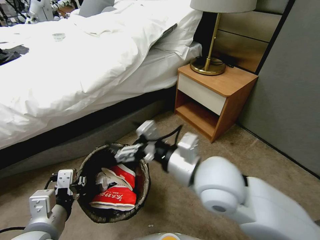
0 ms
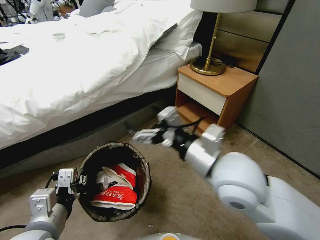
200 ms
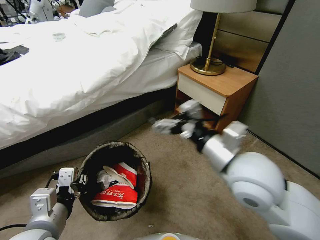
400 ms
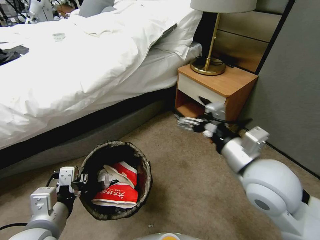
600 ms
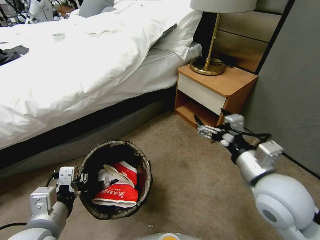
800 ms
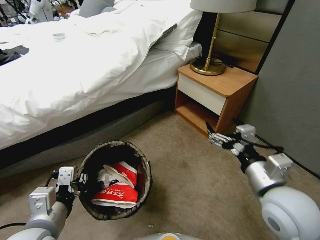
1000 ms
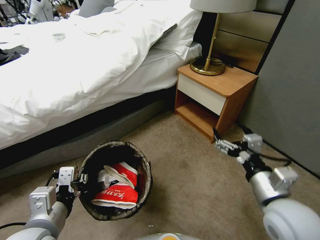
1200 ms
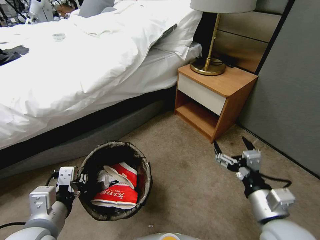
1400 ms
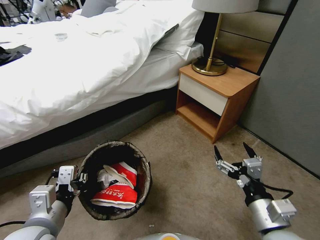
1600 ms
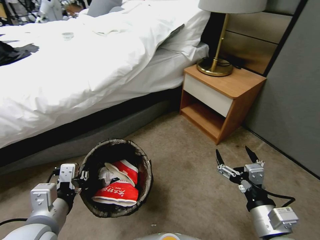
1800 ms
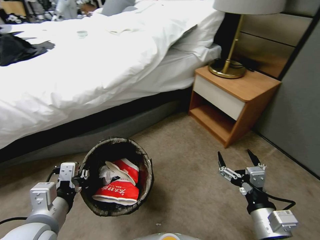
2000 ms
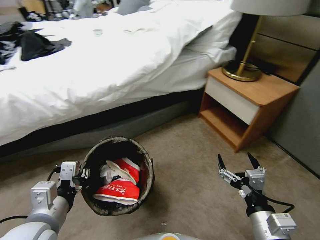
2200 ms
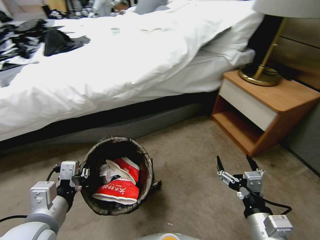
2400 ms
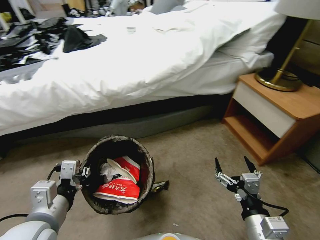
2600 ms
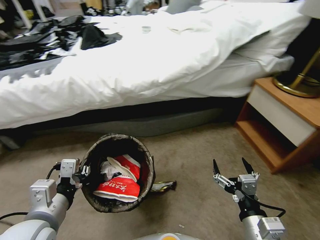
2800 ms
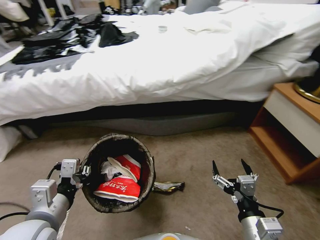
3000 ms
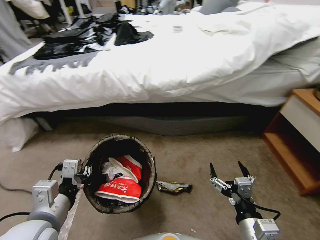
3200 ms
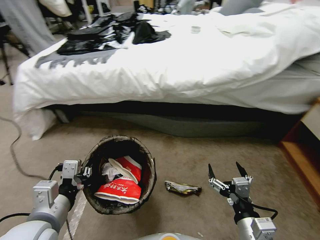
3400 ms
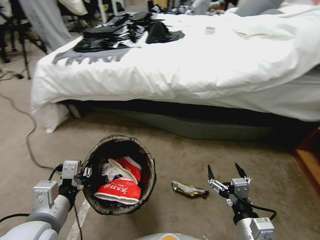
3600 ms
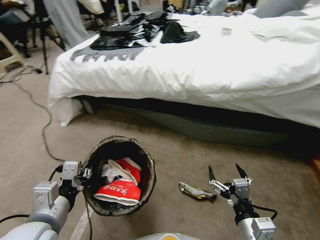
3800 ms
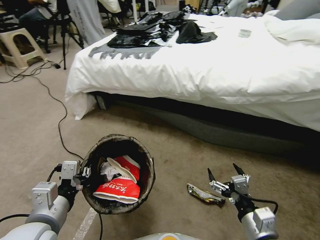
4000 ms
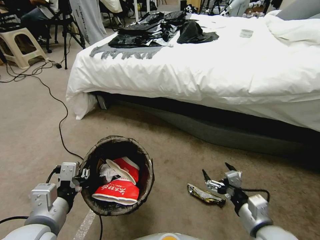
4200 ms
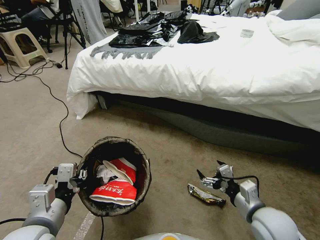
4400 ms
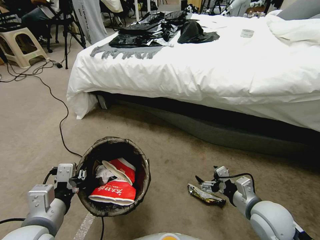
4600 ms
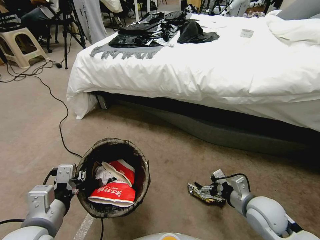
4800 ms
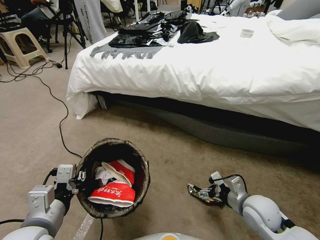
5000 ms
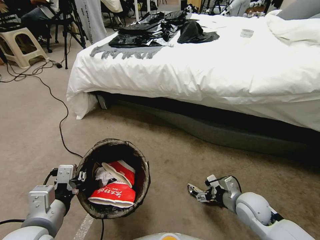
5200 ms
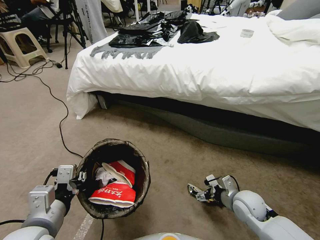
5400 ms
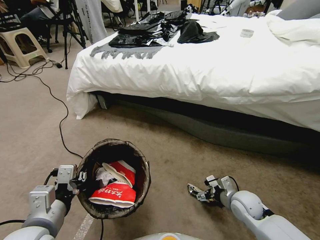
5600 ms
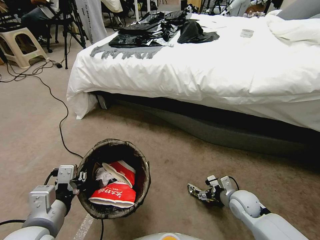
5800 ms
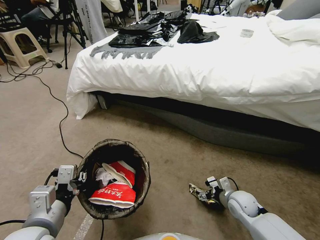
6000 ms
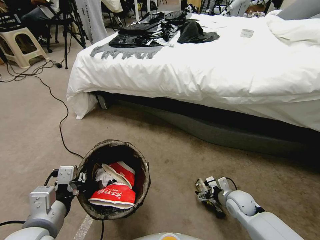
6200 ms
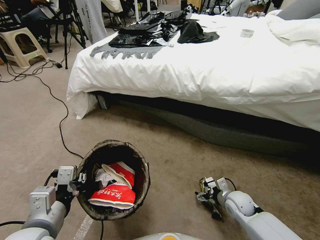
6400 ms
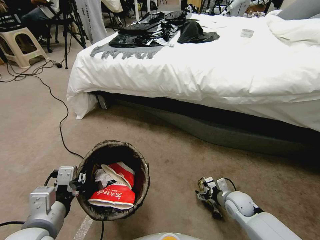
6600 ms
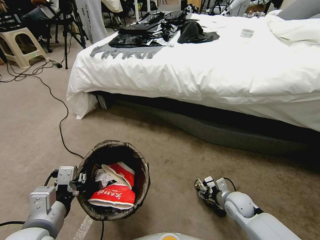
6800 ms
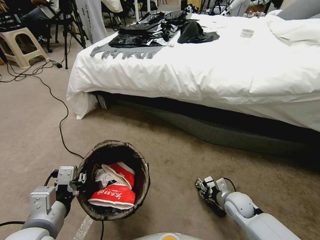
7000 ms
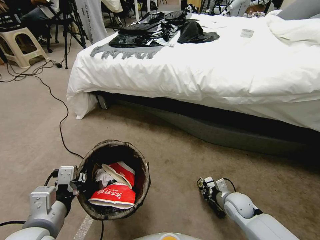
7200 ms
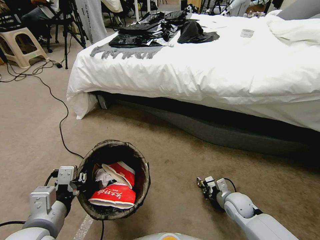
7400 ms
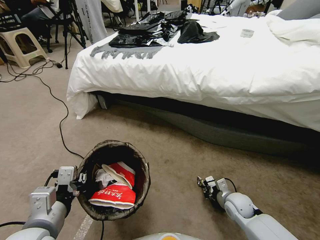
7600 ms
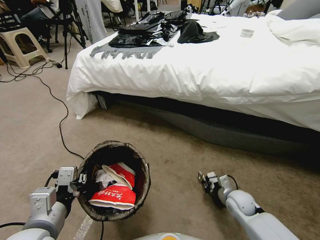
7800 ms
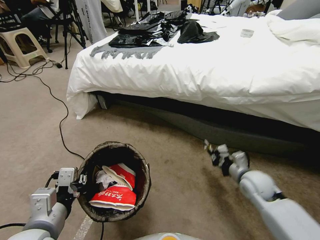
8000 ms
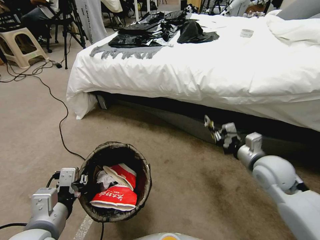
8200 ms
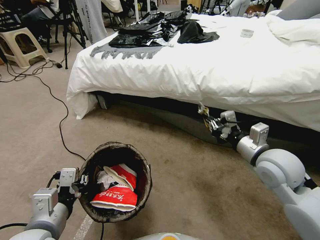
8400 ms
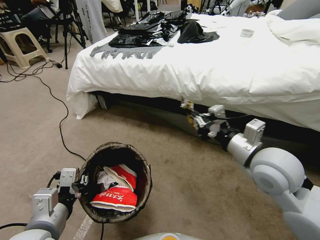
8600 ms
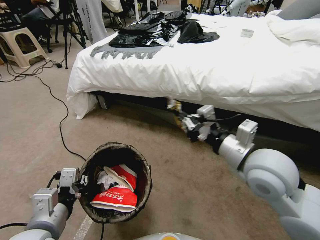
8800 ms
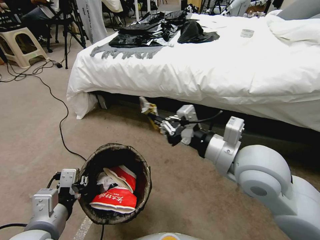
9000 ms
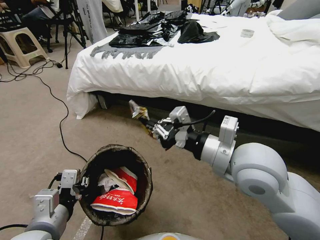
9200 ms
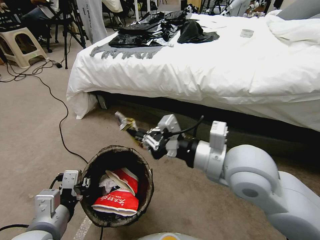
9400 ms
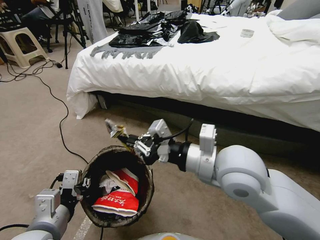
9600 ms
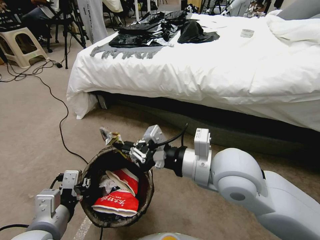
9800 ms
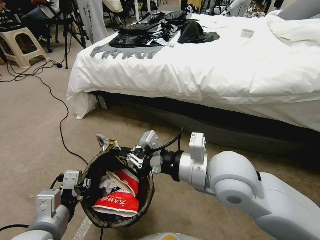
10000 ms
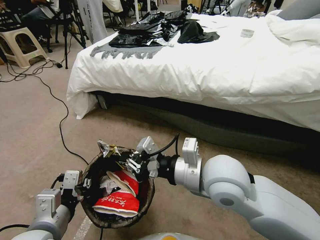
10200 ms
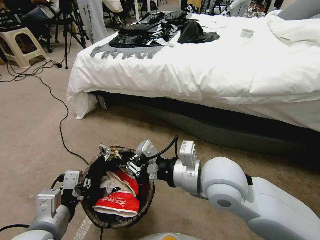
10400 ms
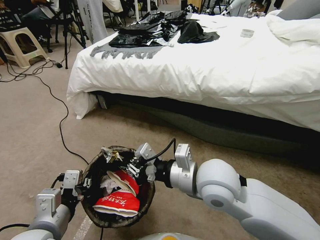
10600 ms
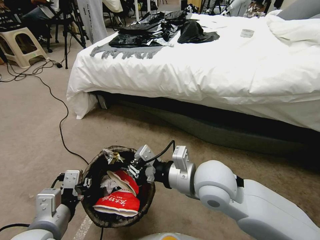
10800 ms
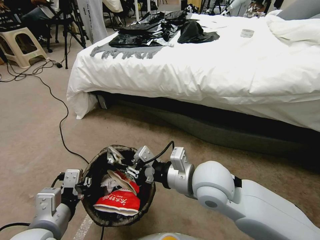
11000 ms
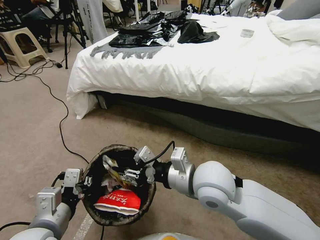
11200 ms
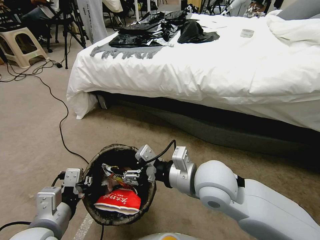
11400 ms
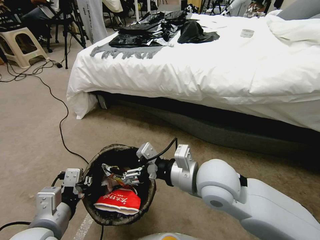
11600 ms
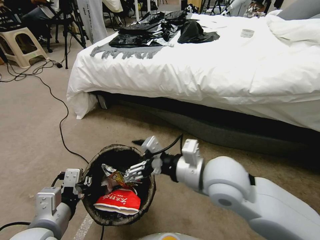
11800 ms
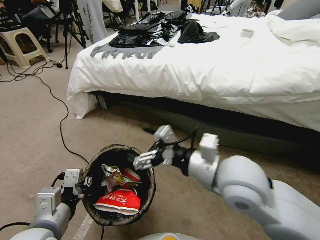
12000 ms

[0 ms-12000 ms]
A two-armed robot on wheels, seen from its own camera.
Task of the whole recording: Pick up the trash bin, then pick up the garbage from the floor and place it into the trash bin.
0 ms to 1600 ms: The right gripper travels to the right, downward and backward by about 25 cm.
1600 ms to 3000 ms: The right gripper shifts by approximately 5 cm.
3000 ms to 4400 ms: The right gripper heads forward, covering roughly 10 cm.
4400 ms to 6000 ms: The right gripper shifts about 15 cm downward and forward.
6000 ms to 7600 ms: The right gripper closes its fingers.
7600 ms to 9000 ms: The right gripper goes some 35 cm upward.
9000 ms to 10400 ms: The right gripper heads to the left, covering about 5 cm.
10400 ms to 12000 ms: The right gripper opens its fingers.

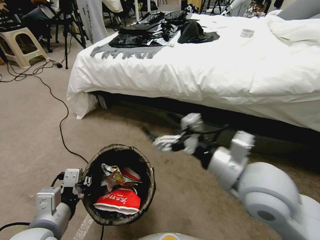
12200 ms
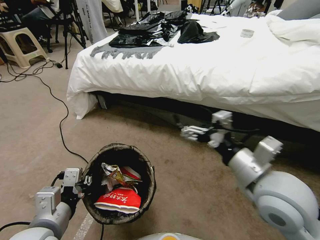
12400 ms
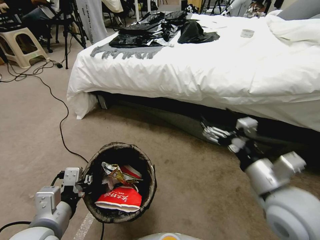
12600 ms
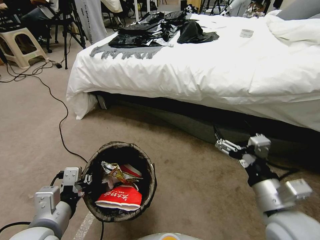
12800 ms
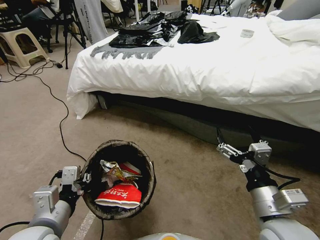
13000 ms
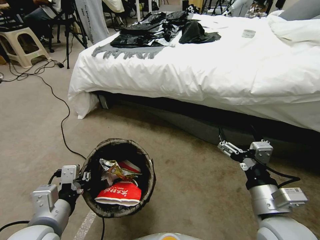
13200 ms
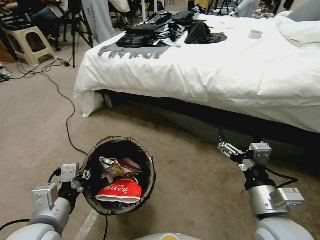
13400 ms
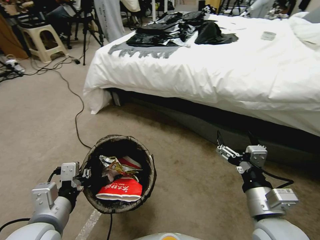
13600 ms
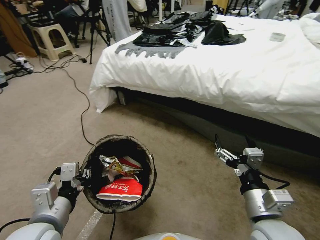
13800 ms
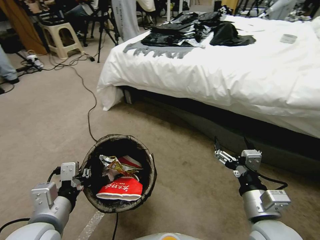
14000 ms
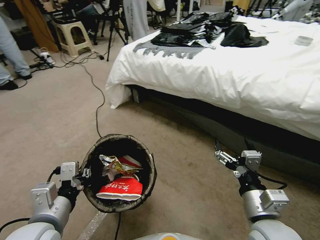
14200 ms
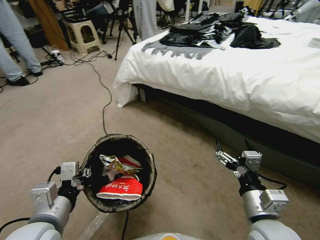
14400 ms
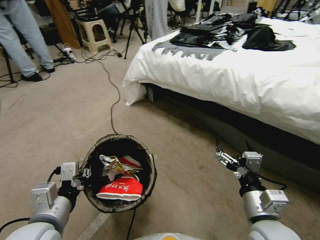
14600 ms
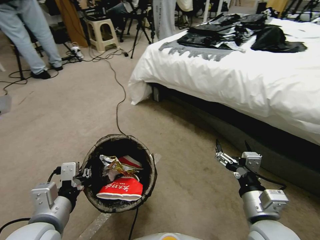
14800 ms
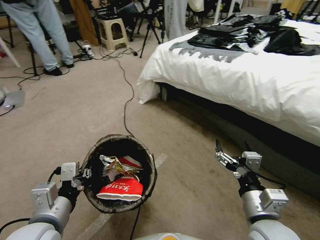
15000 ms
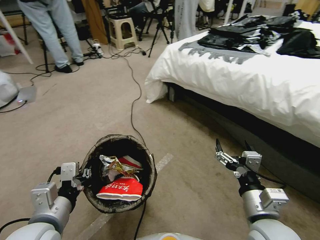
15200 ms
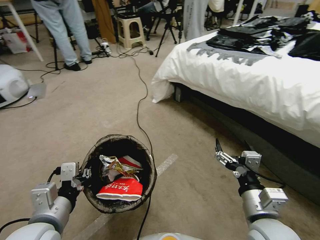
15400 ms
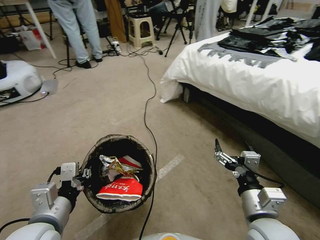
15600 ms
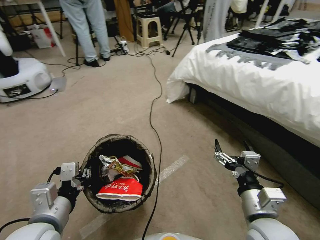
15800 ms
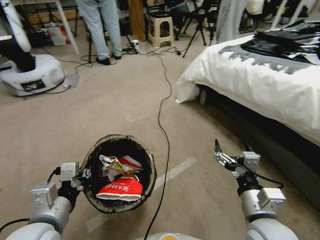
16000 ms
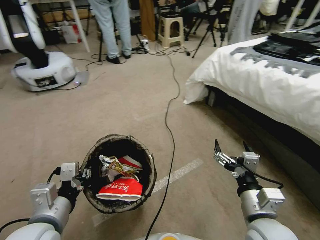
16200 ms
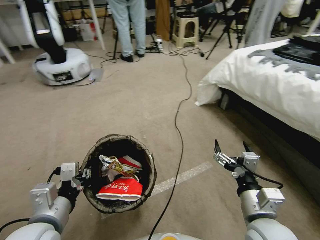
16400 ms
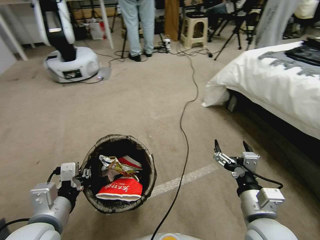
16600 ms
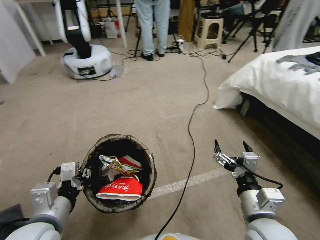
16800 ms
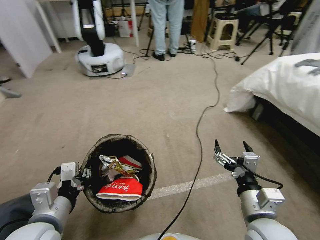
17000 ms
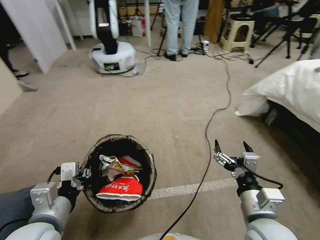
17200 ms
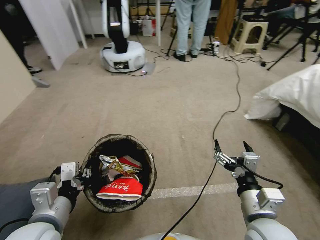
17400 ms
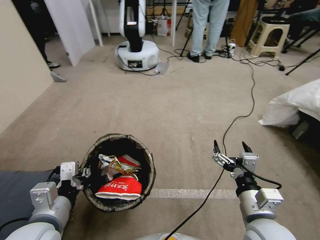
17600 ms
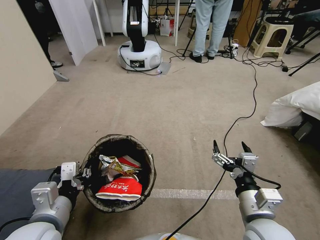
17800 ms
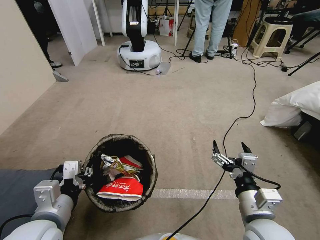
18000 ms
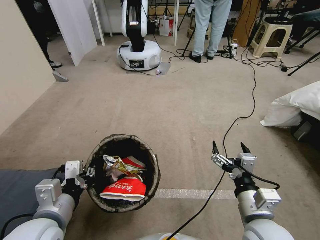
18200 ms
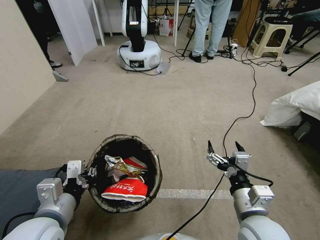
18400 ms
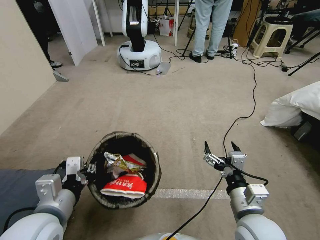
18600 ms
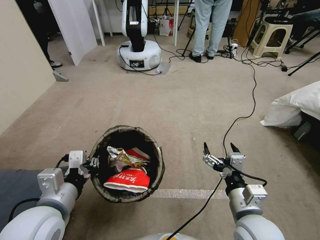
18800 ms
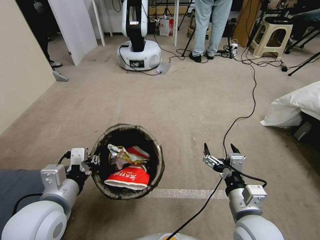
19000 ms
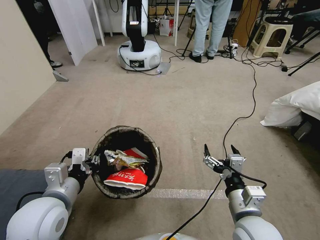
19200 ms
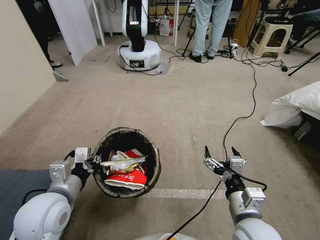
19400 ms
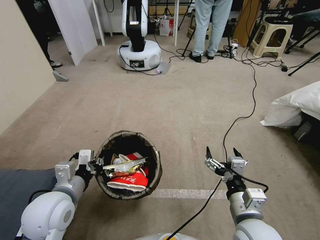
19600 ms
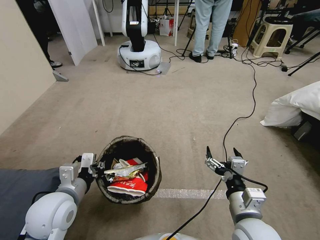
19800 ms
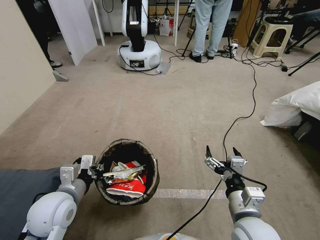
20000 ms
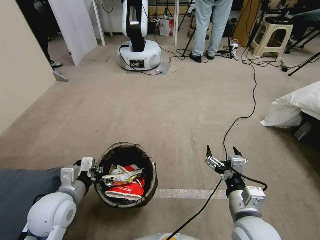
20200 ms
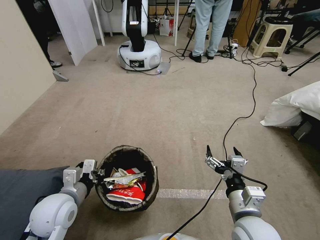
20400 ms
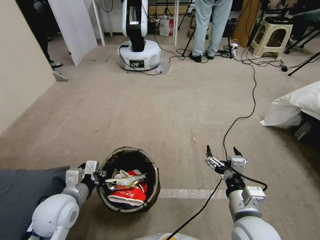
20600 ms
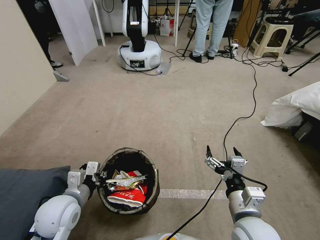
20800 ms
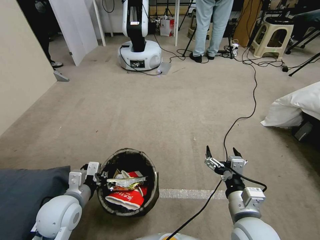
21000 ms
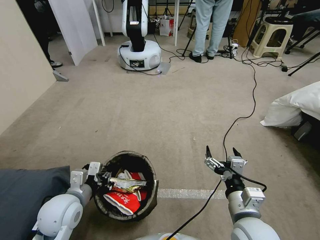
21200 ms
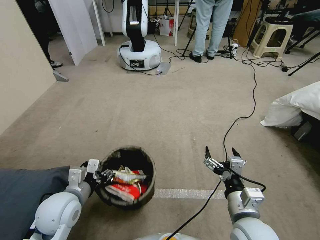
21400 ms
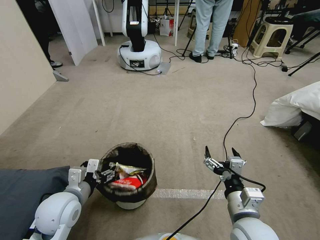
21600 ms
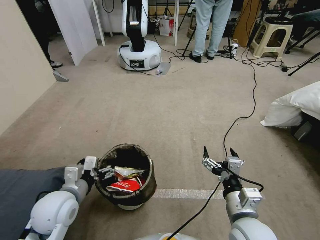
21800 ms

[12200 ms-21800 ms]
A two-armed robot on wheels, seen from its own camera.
Task of the whole recording: Pick up the trash bin, then pick up the garbage from the floor and place it into the trash bin.
12200 ms to 13800 ms: The right gripper moves downward, backward and to the right, about 15 cm.
18600 ms to 20200 ms: The left gripper heads downward and forward, covering roughly 10 cm.
20200 ms to 21800 ms: The left gripper opens.

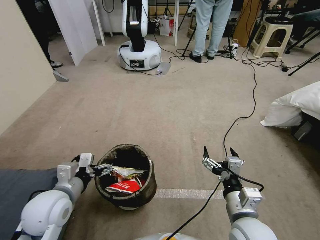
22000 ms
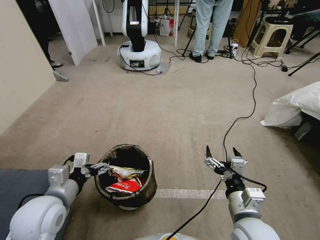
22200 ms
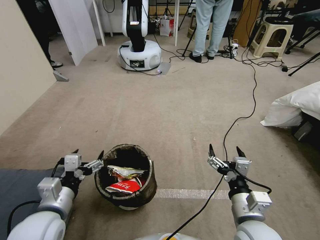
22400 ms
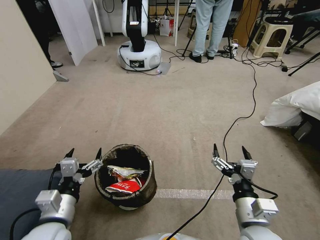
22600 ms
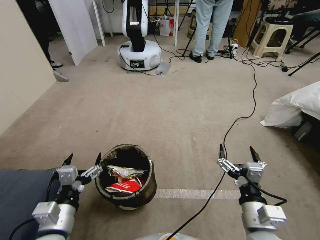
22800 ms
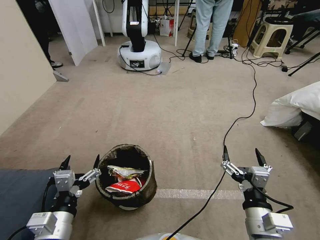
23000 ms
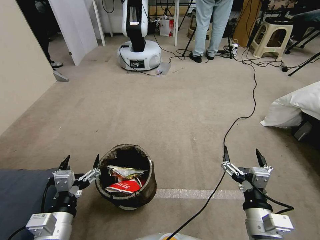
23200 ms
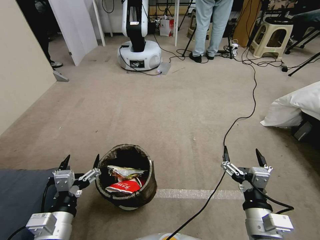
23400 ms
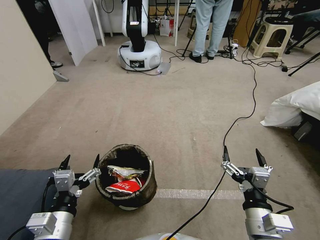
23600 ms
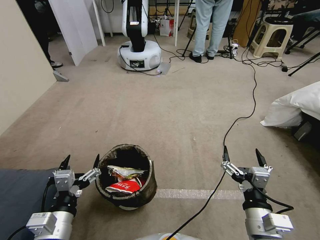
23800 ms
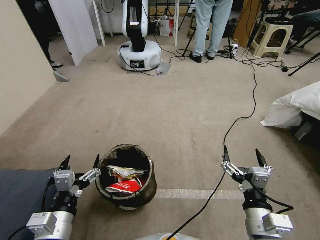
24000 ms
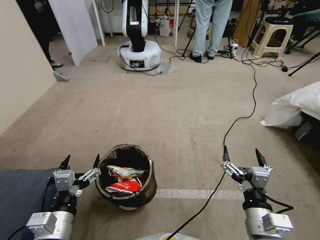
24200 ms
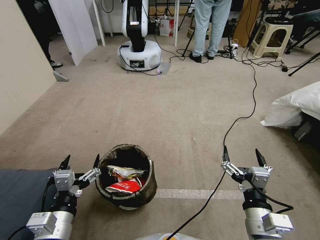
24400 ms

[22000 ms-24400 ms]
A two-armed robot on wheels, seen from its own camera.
Task of the whole recording: Pick up the trash bin, then pick up the garbage from the floor and place it into the trash bin.
22000 ms to 23200 ms: The left gripper shifts roughly 10 cm backward.
23200 ms to 24400 ms: The two grippers keep their place.
